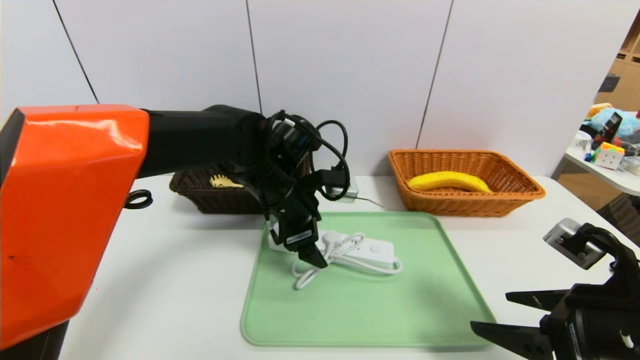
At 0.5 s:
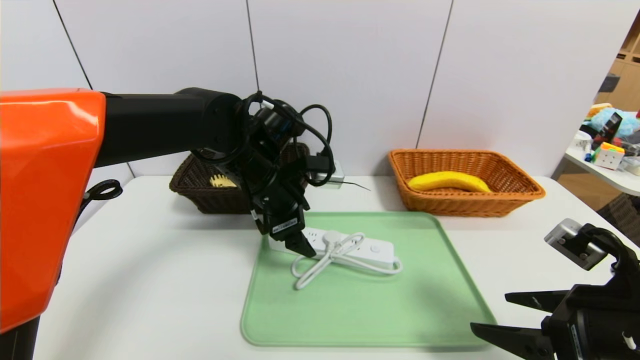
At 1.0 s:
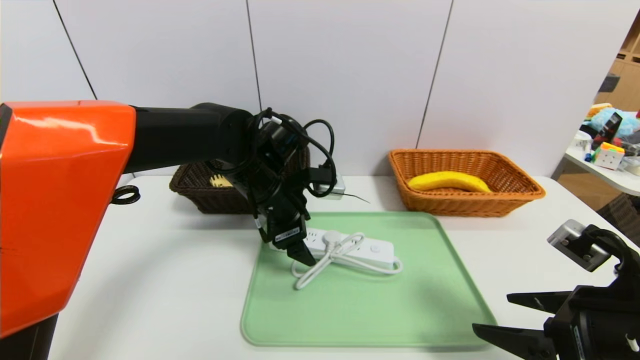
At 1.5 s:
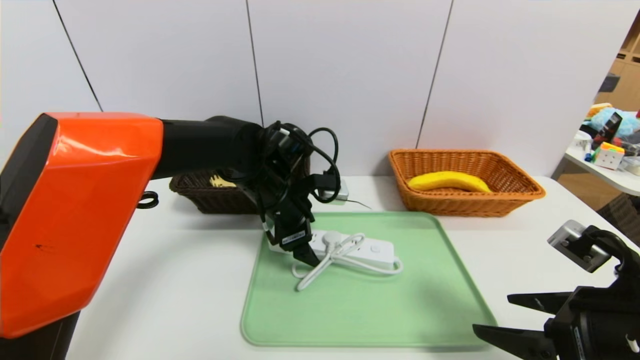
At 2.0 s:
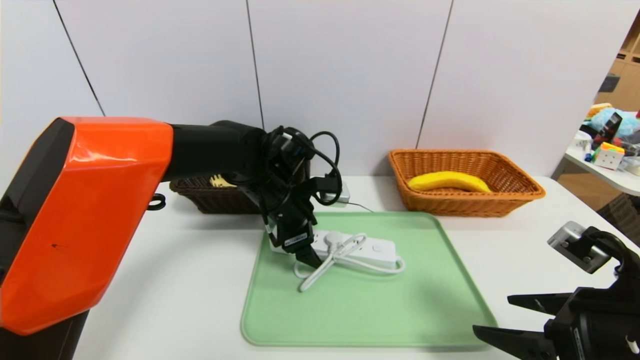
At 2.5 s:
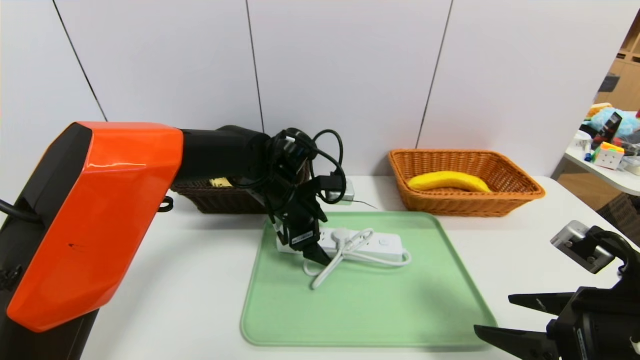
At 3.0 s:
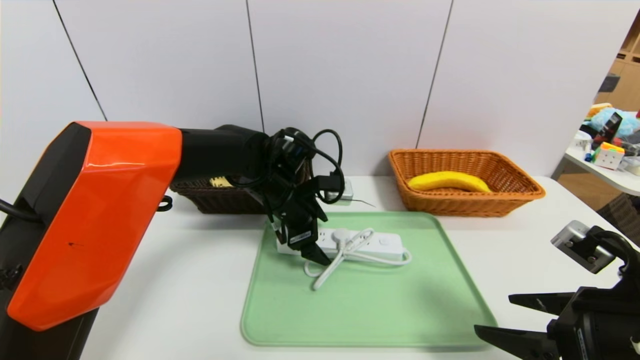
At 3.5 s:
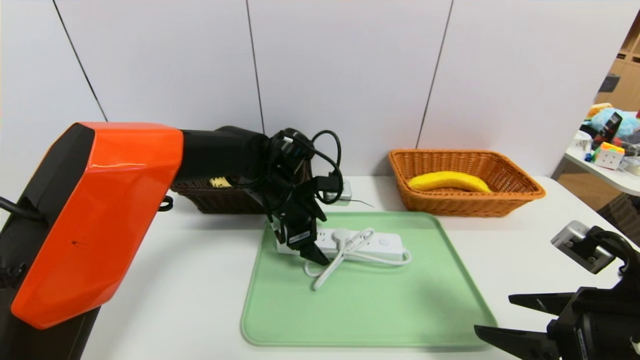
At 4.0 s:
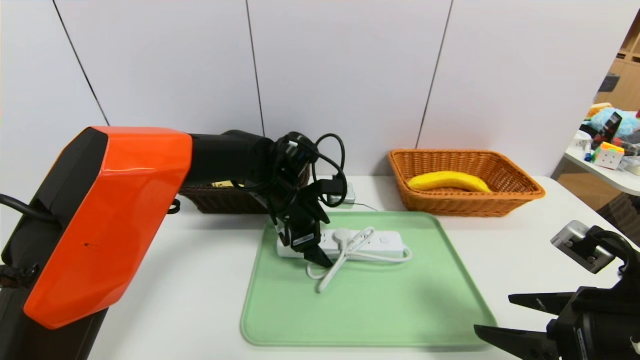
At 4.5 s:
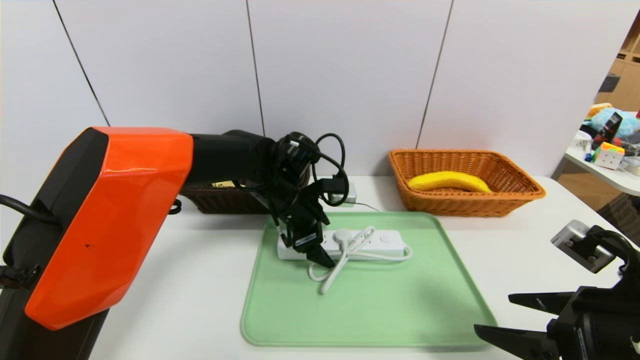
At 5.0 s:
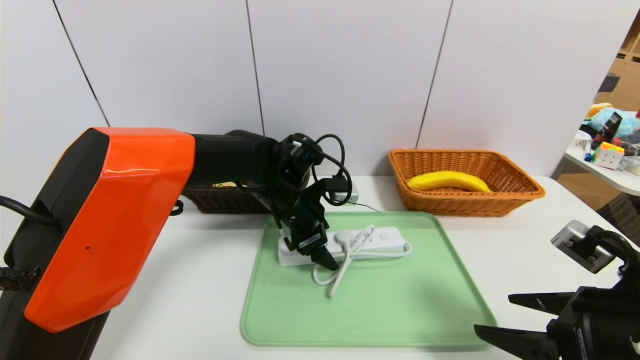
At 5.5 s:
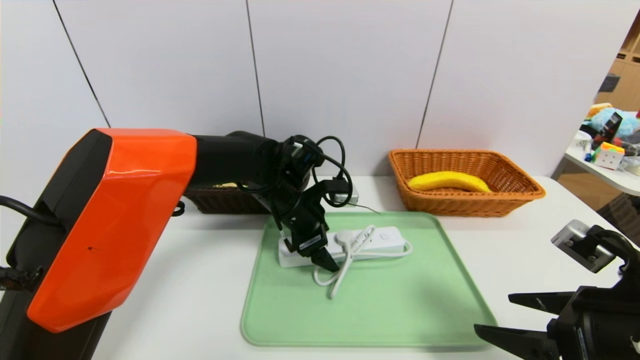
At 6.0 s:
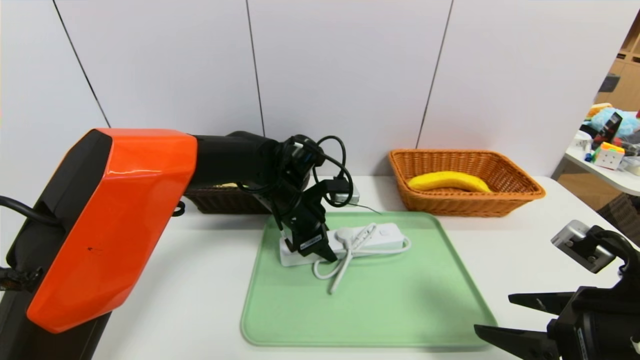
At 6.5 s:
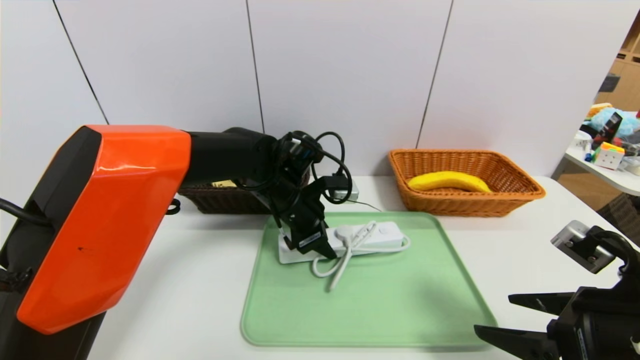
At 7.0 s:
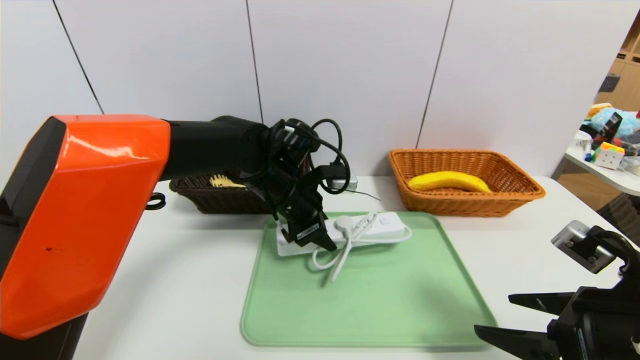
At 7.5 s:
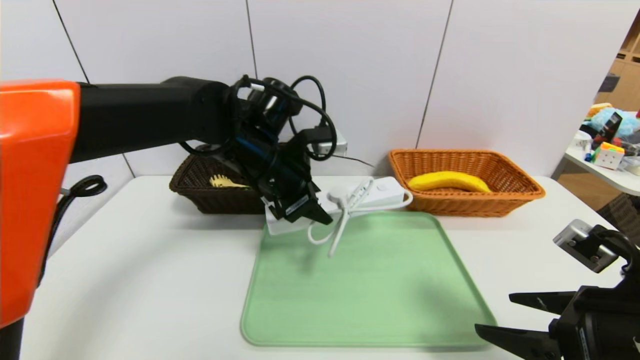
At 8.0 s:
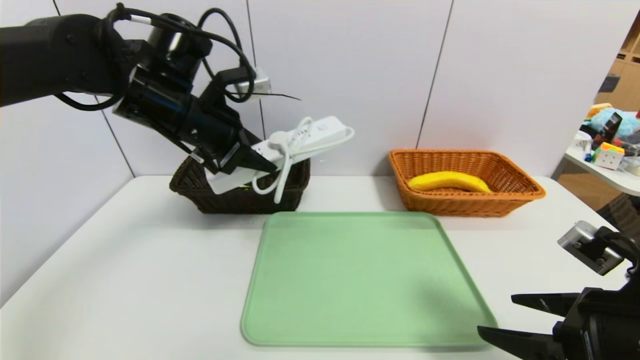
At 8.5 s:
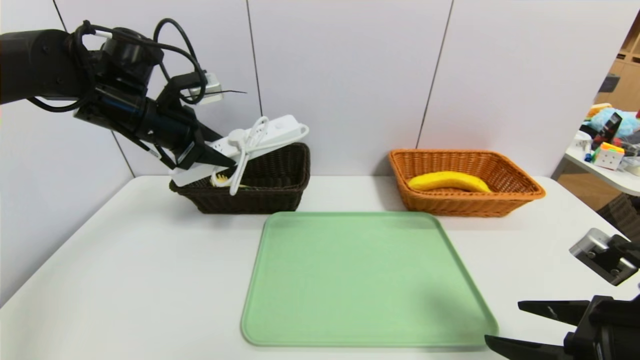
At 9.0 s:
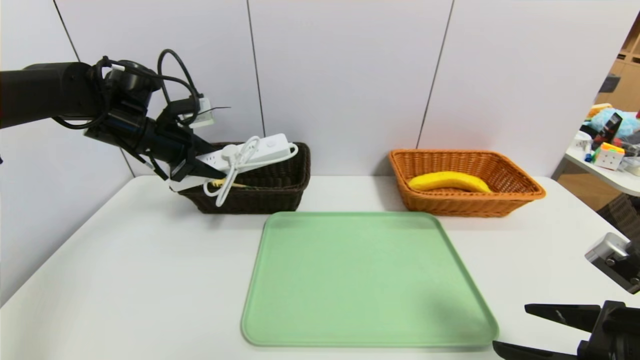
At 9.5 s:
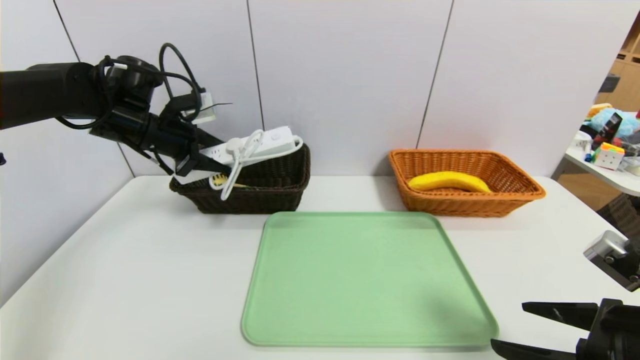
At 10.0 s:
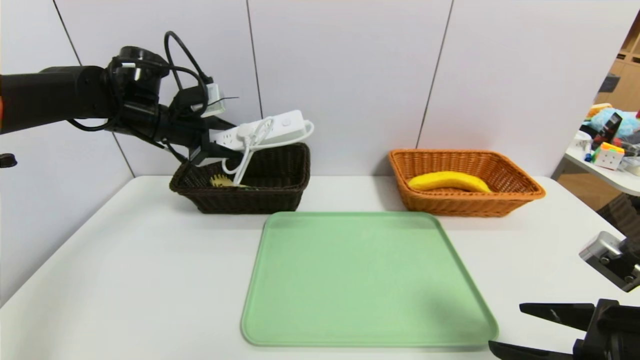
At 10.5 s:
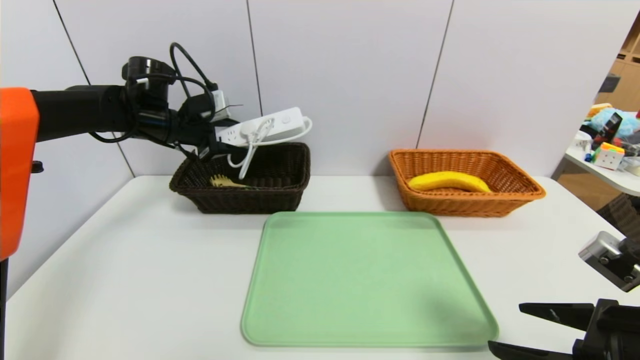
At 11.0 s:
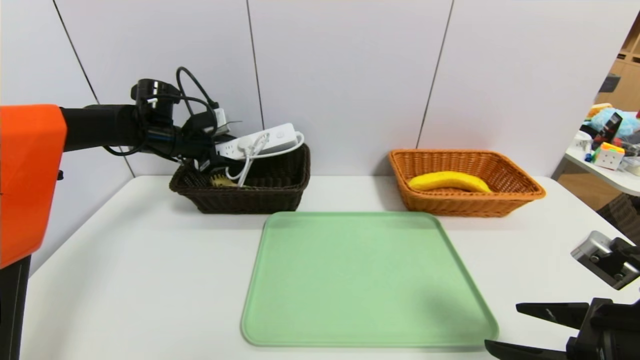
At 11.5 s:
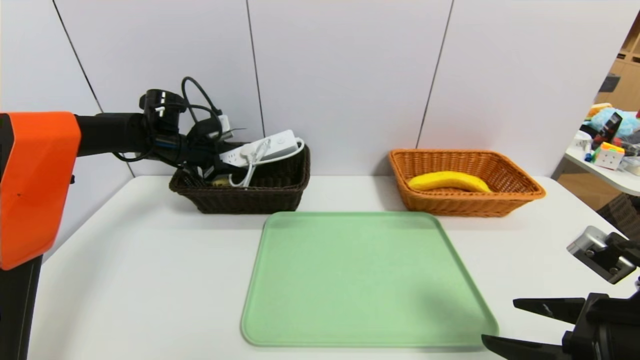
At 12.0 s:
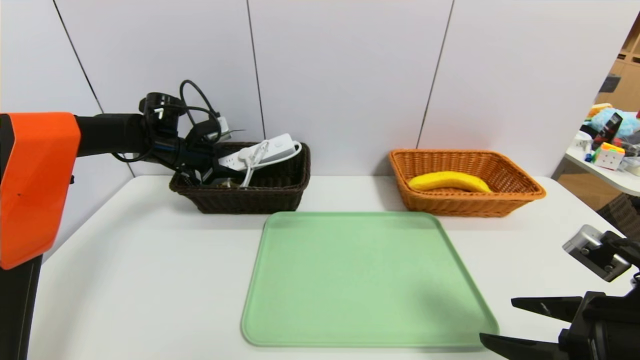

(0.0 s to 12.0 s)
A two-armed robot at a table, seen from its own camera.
Task of the whole recording: place the food in the right basket with the right gripper, and place the non food items in the left basket with the left gripper.
0.0 s - 4.0 s: The grippers make only small movements.
4.0 s - 6.0 s: The left gripper closes up.
6.0 s - 8.0 s: The left gripper goes about 20 cm upward and to the left.
8.0 s - 10.0 s: The left gripper travels to the left and forward by about 10 cm.
10.0 s - 12.0 s: The left gripper shifts some 10 cm downward and forward.

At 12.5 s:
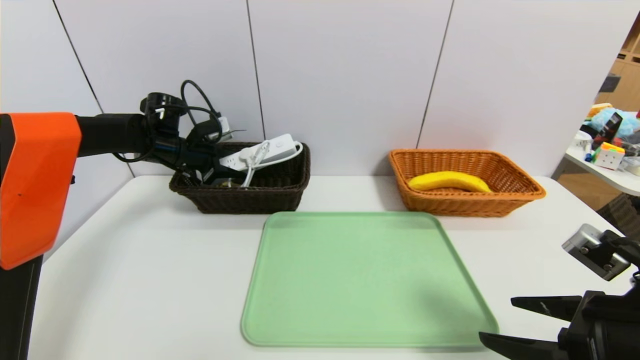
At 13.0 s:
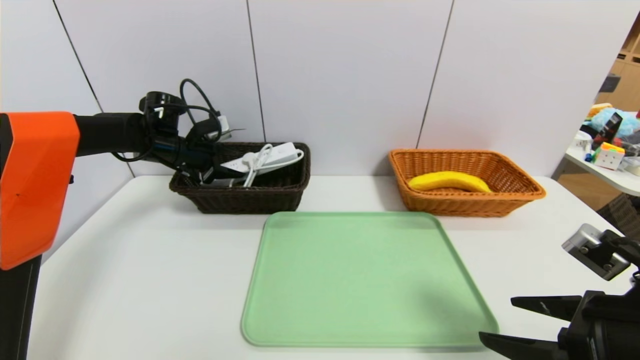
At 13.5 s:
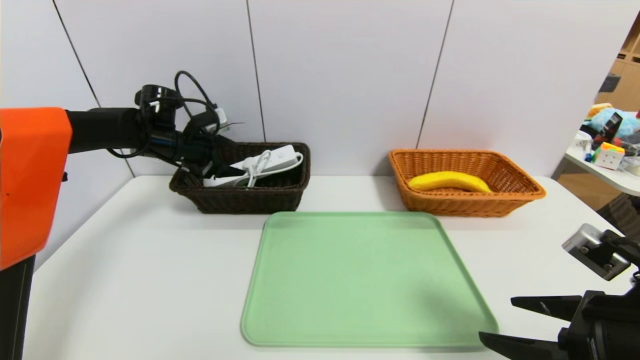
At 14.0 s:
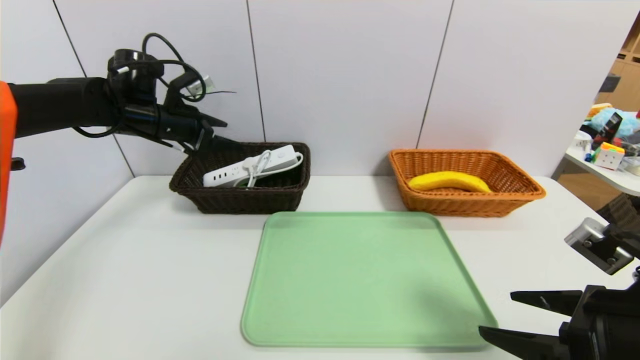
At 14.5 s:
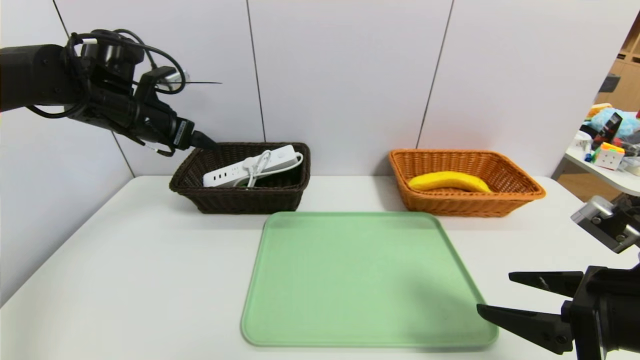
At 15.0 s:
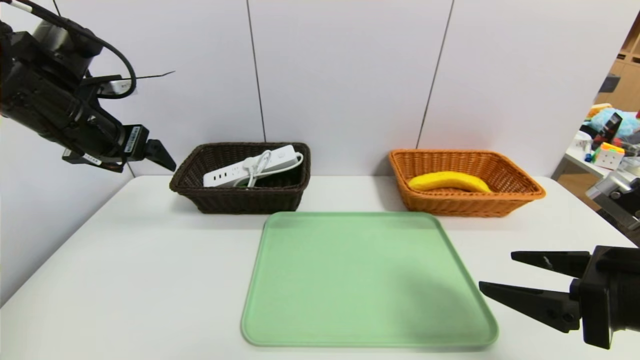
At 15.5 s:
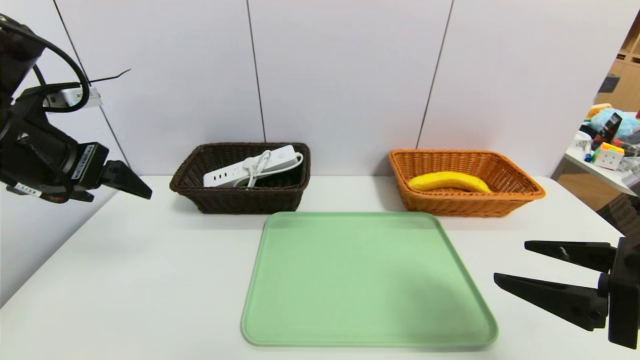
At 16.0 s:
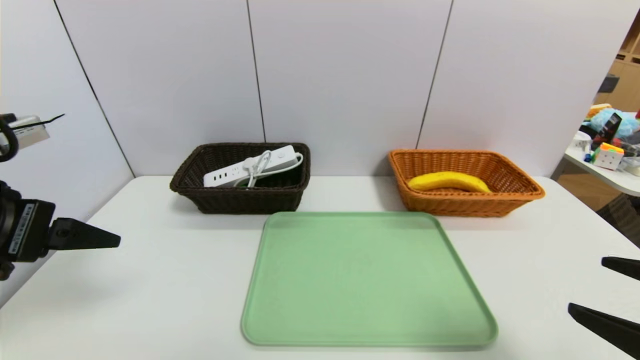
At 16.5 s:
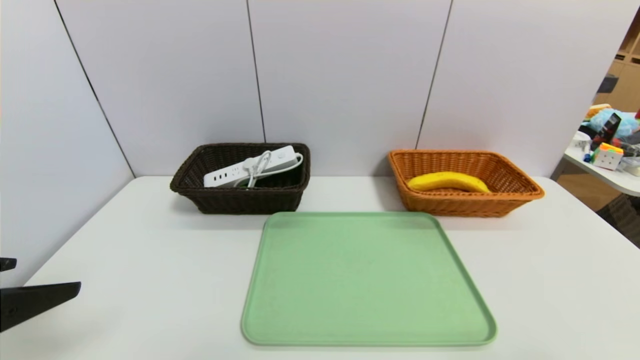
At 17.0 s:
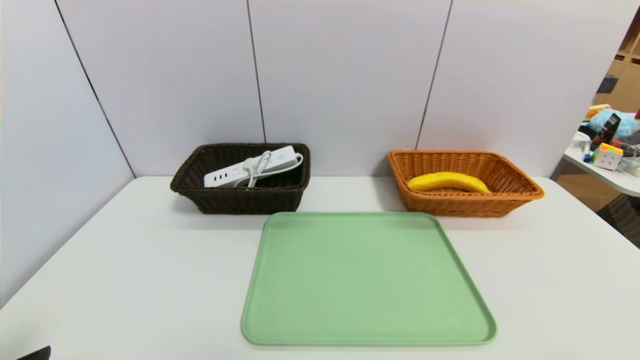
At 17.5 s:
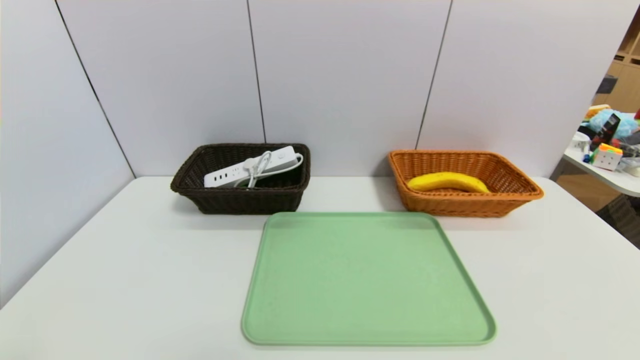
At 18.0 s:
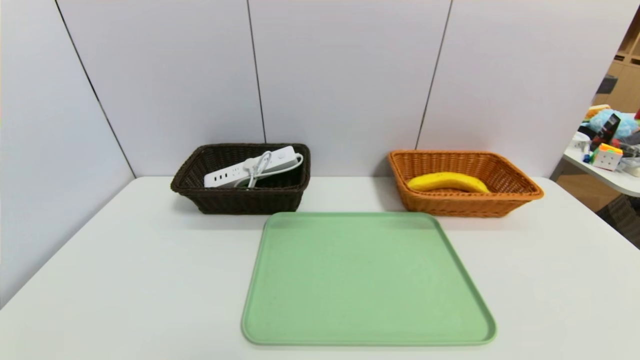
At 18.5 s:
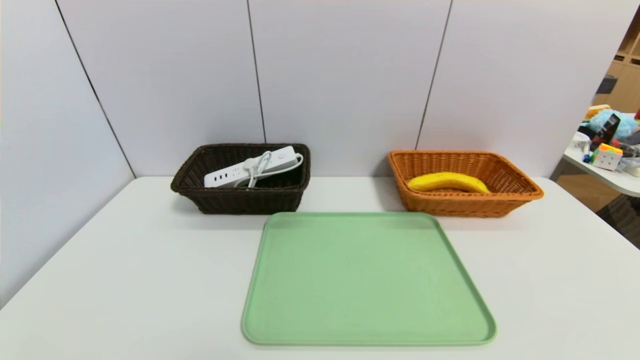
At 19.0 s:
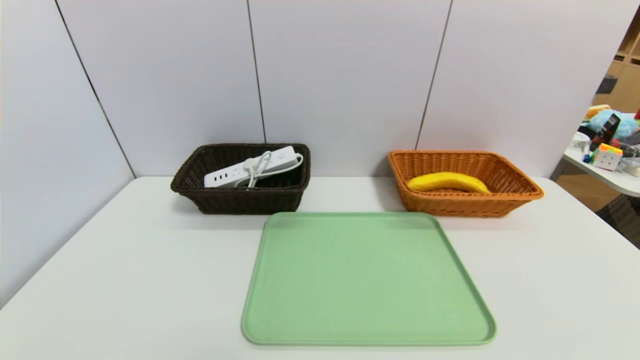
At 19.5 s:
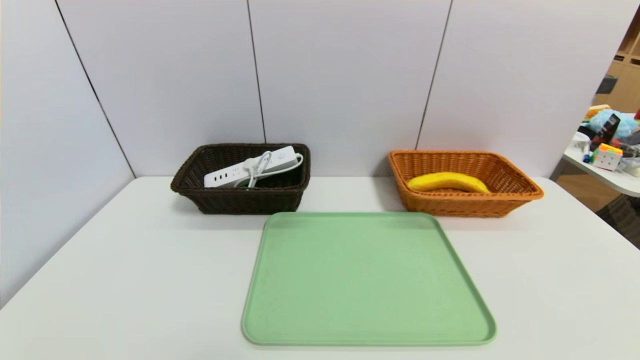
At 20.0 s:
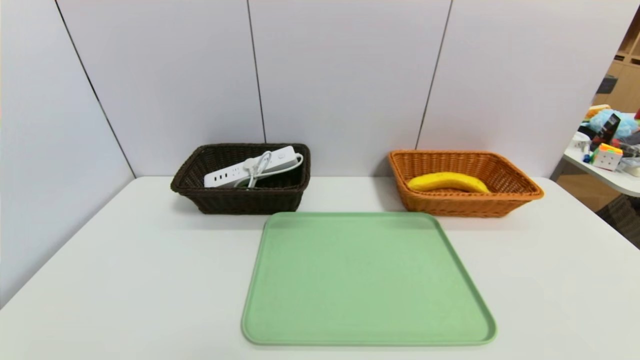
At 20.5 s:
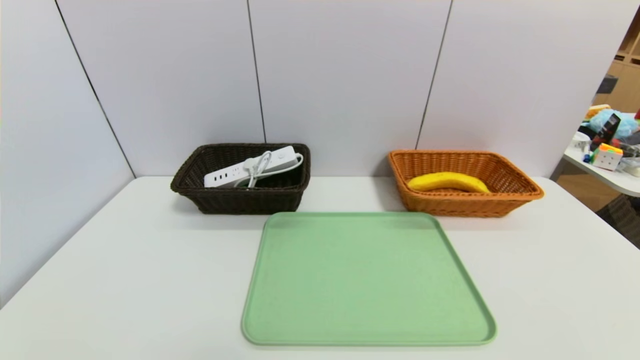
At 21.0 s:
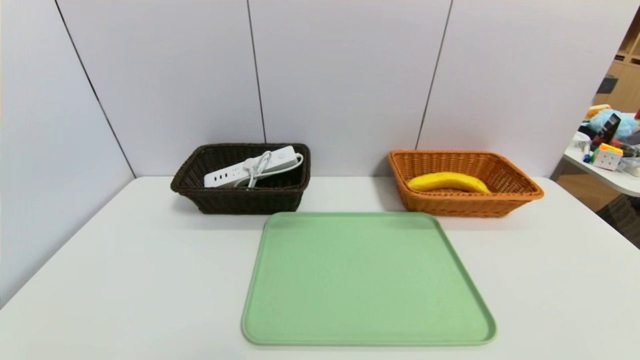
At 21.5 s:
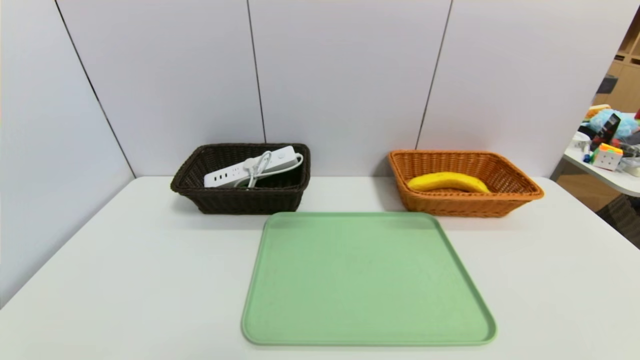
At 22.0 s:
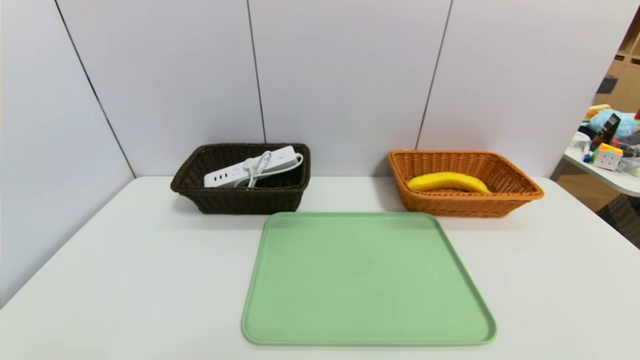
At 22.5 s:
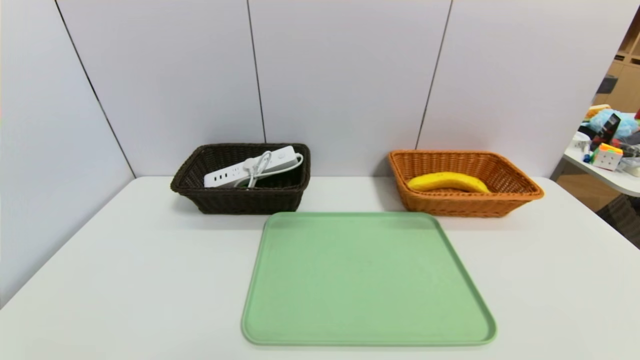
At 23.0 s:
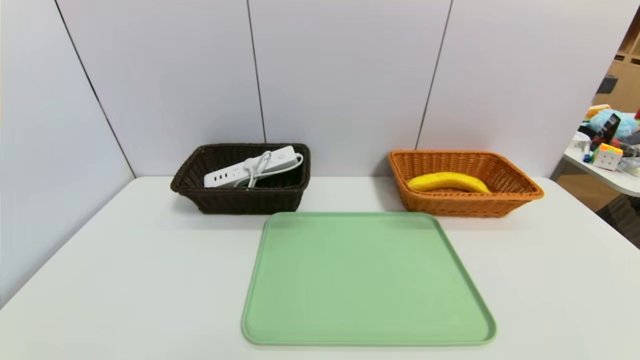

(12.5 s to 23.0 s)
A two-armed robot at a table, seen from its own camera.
Task of the whole recording: place the food in the right basket with the right gripper, and place the non food items in the left basket with the left gripper.
12.5 s - 14.5 s: The left gripper moves upward and backward, about 15 cm, and opens.
14.5 s - 16.5 s: The left gripper goes some 30 cm backward, while the right gripper moves backward and to the right, some 15 cm.
16.5 s - 19.0 s: The left gripper goes roughly 20 cm downward and backward.
21.0 s - 23.0 s: Neither gripper changes place.
